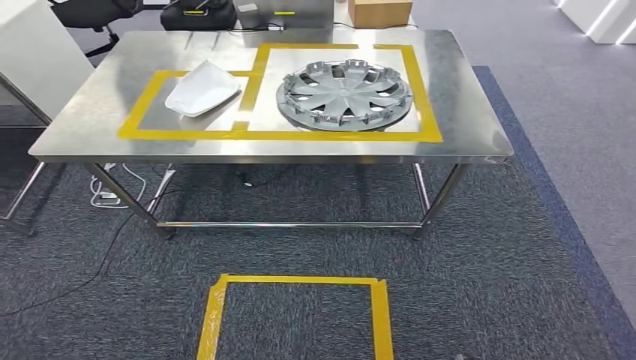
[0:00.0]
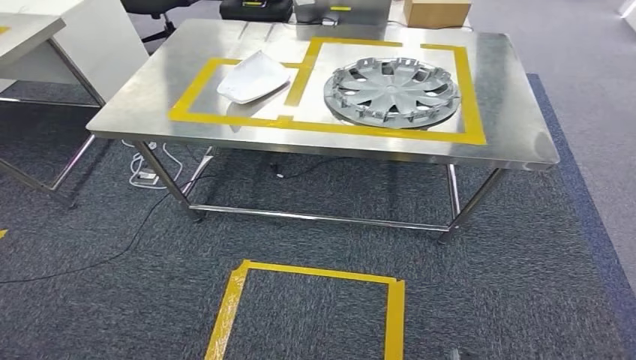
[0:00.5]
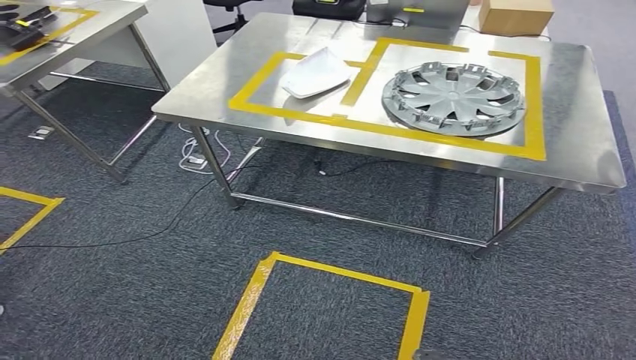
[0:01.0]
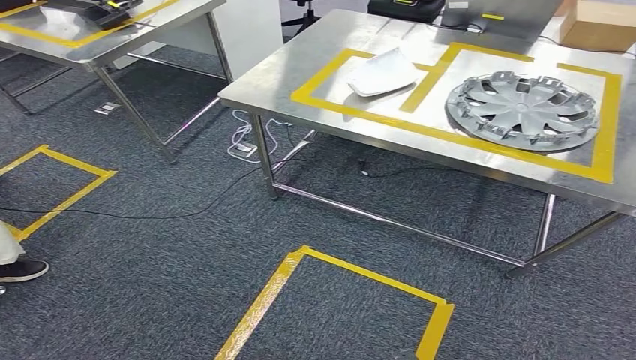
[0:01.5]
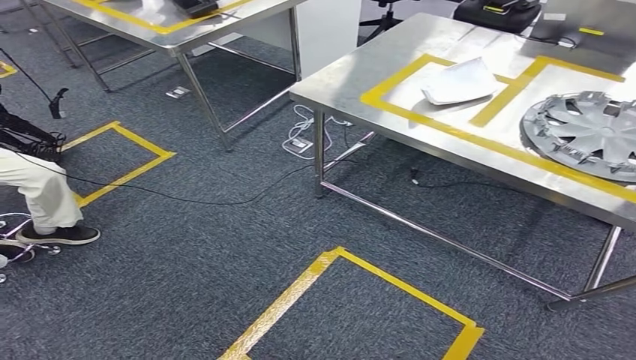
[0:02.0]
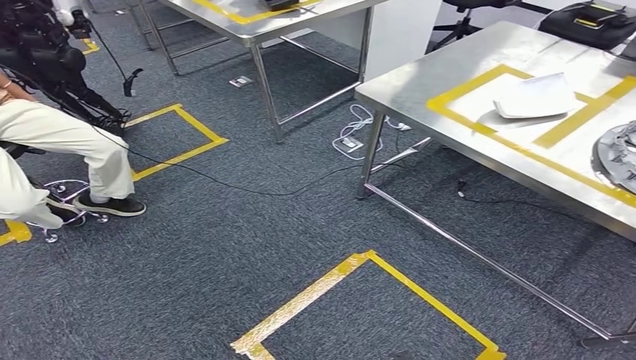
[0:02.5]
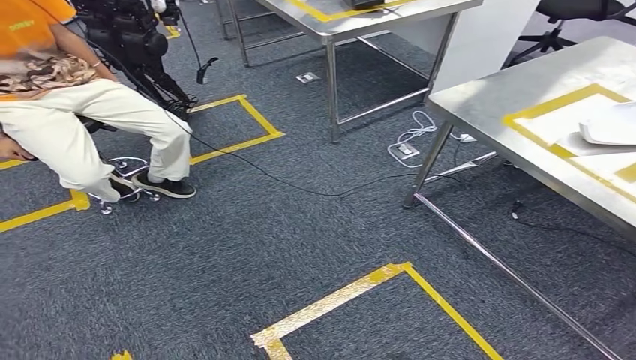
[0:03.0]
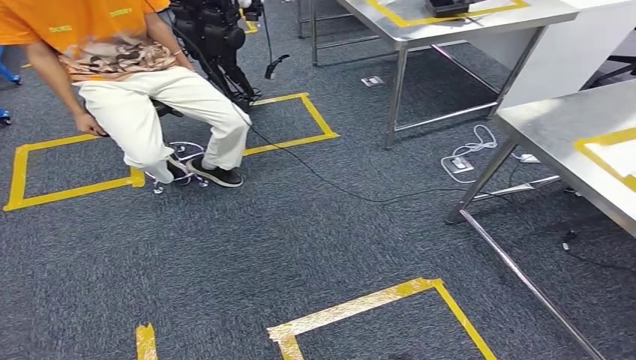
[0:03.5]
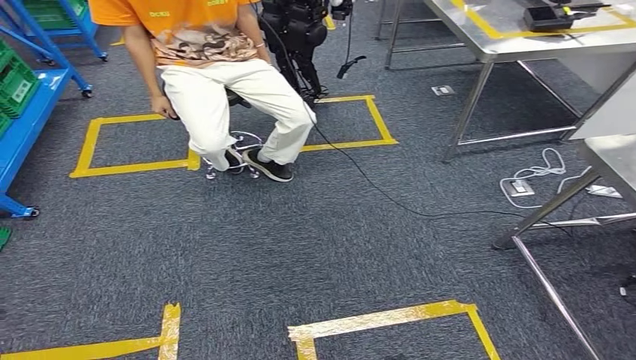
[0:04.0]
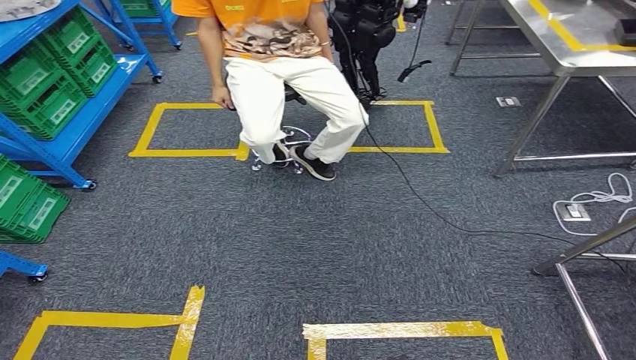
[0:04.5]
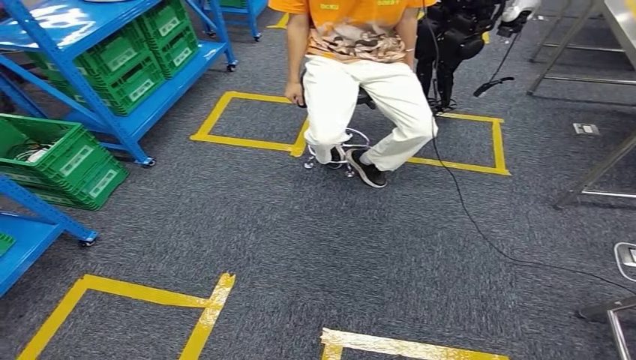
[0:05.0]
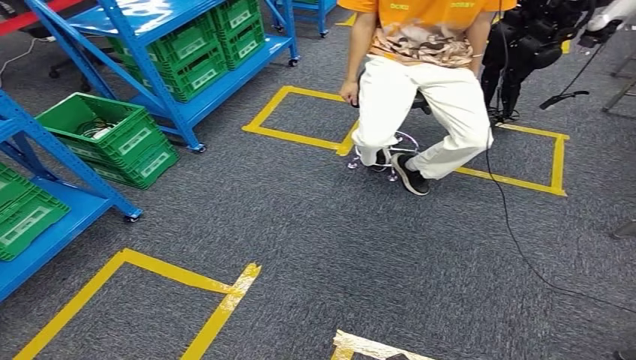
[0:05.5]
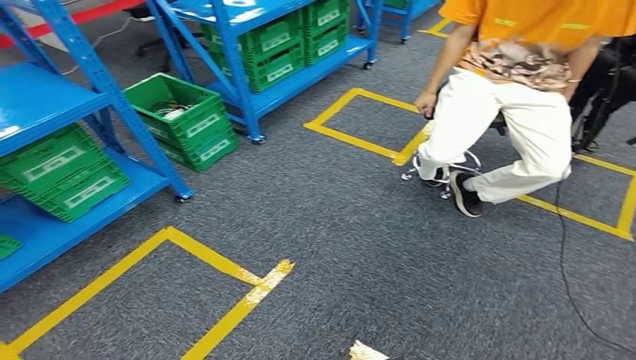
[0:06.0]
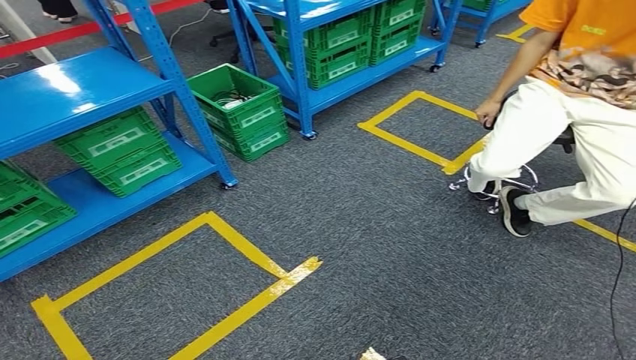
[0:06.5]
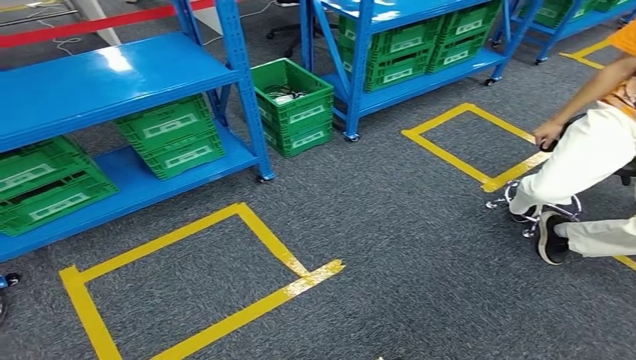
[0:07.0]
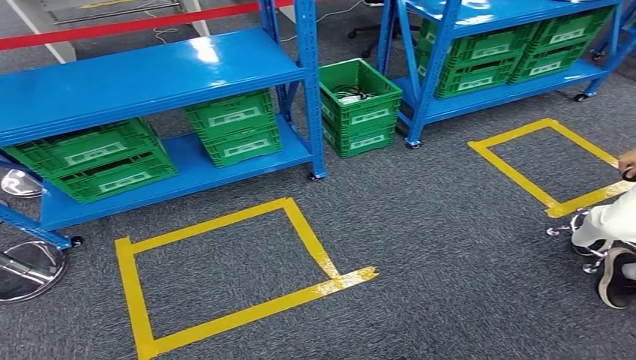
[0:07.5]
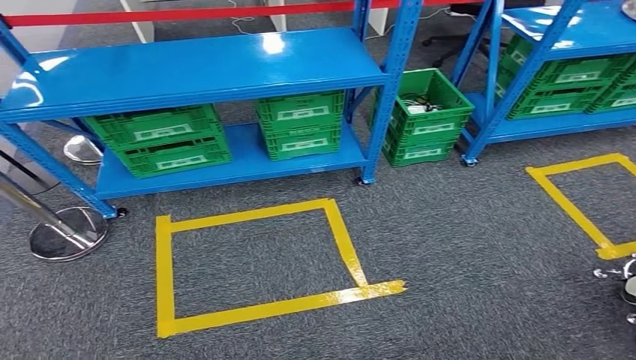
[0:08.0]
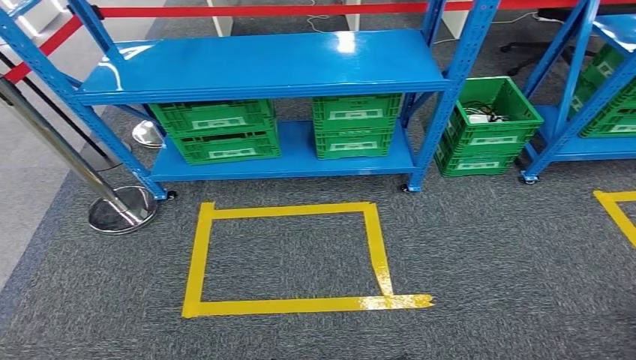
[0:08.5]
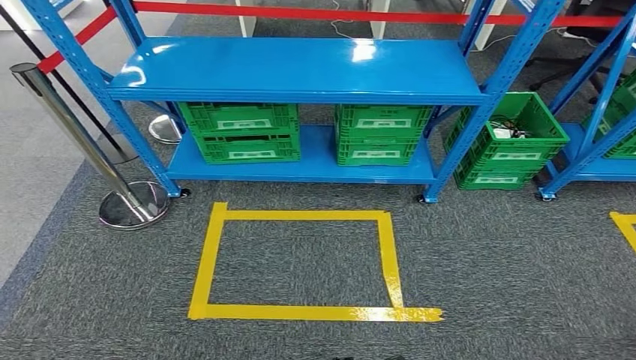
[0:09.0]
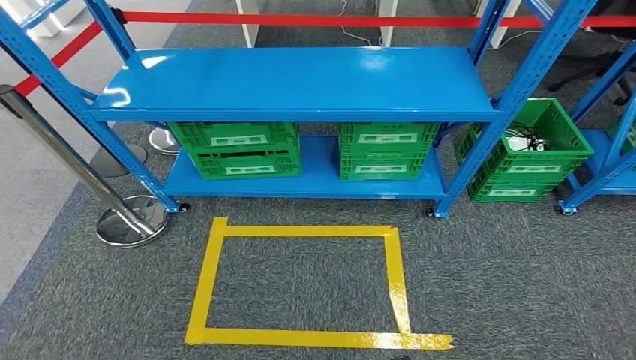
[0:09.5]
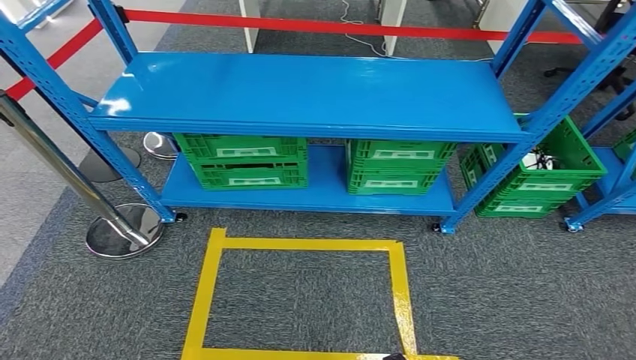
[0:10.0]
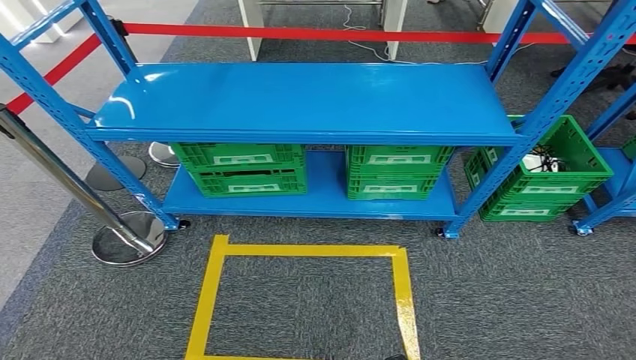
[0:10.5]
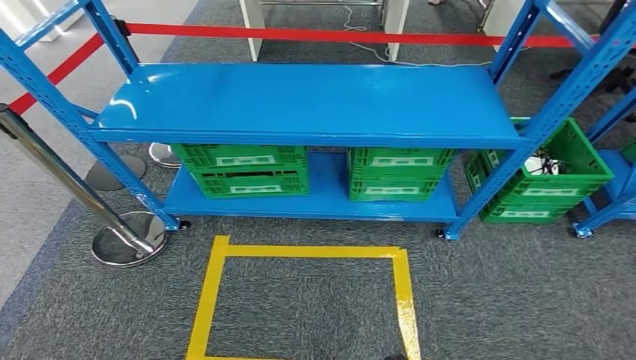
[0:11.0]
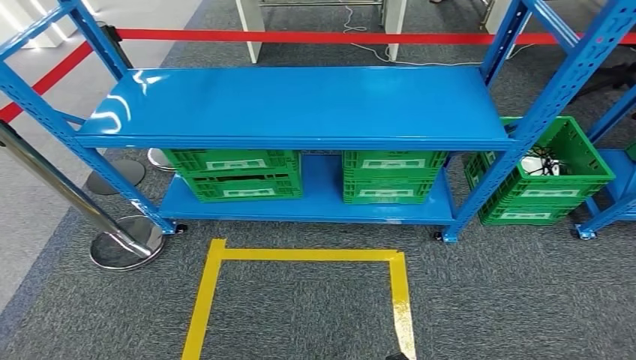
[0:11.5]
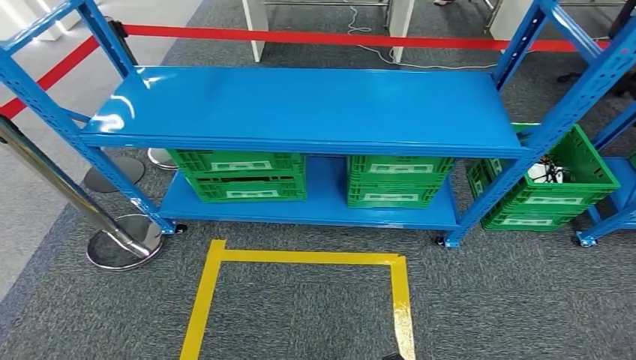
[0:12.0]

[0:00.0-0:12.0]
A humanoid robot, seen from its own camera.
Step, 0:00.0 to 0:07.0: Insert the small parts into the corresponding holes on the workbench.

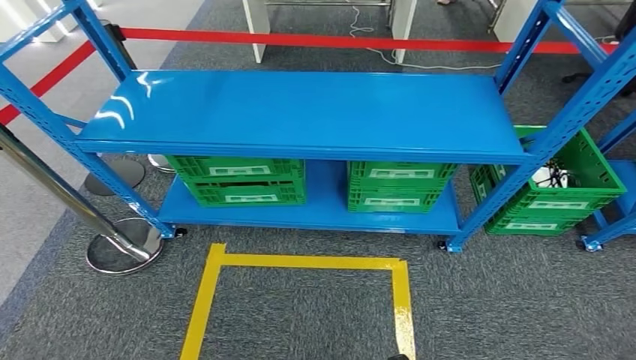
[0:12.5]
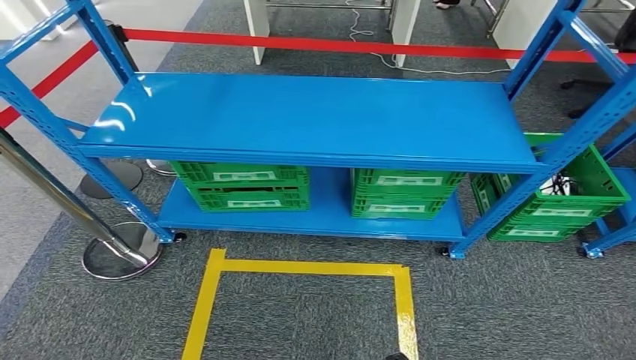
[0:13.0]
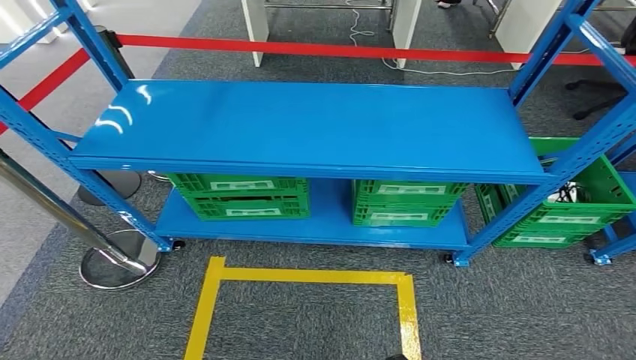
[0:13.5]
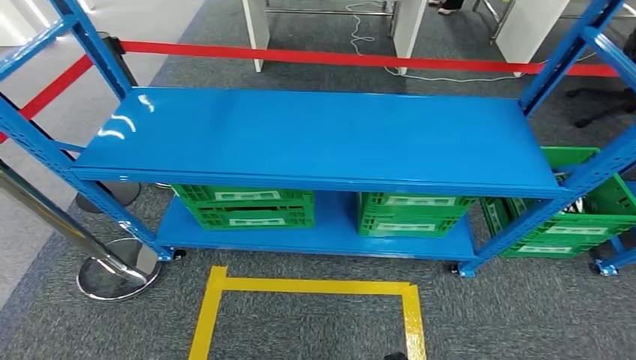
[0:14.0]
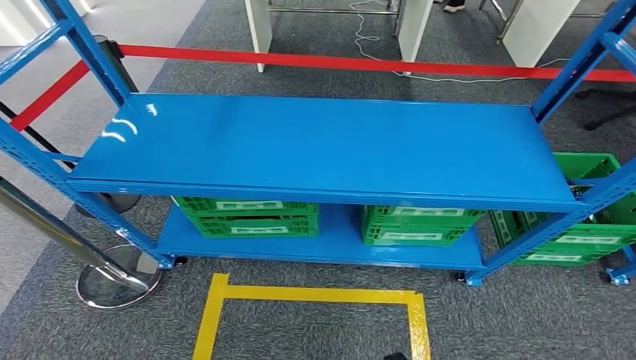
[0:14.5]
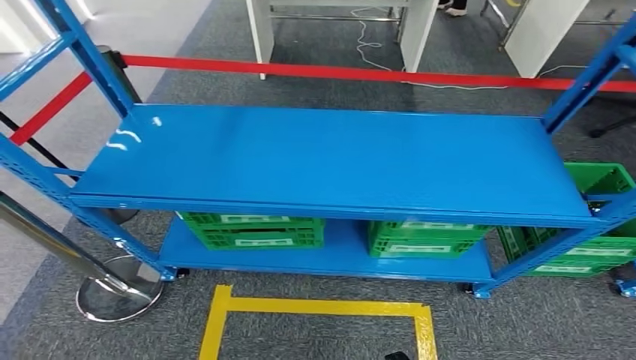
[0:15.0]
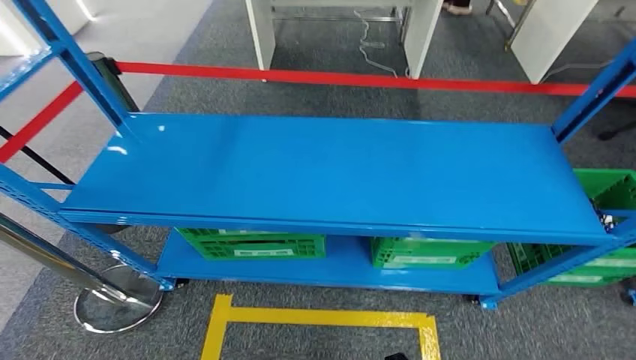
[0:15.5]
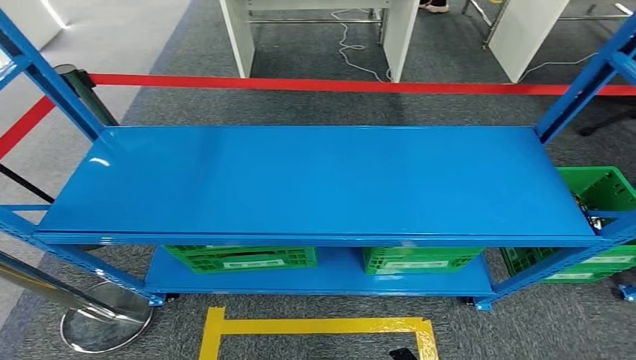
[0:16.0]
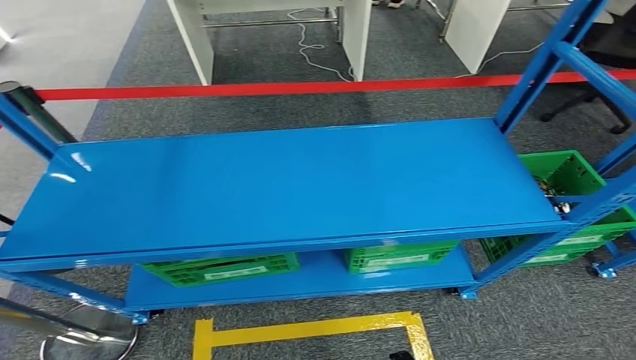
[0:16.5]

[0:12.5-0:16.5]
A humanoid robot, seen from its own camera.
Step, 0:12.5 to 0:16.5: Move to the initial position of the workbench.

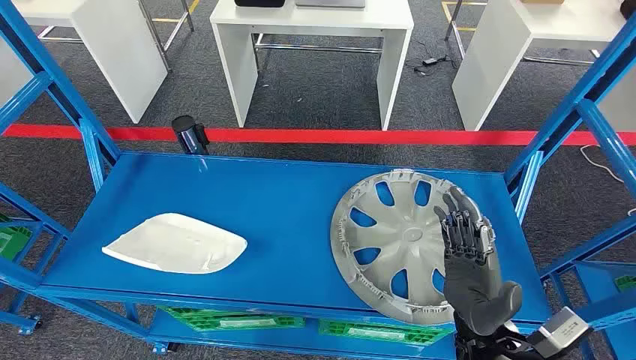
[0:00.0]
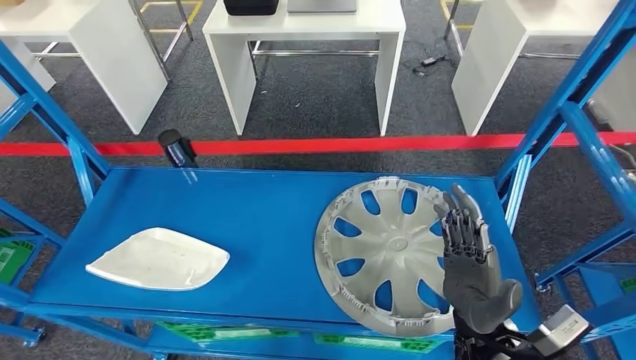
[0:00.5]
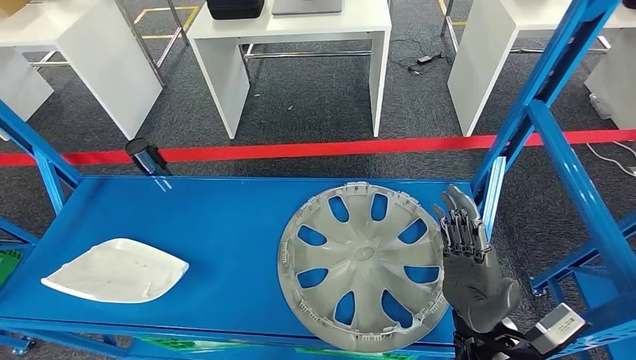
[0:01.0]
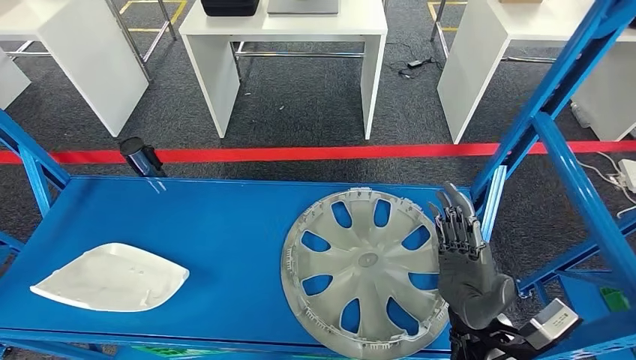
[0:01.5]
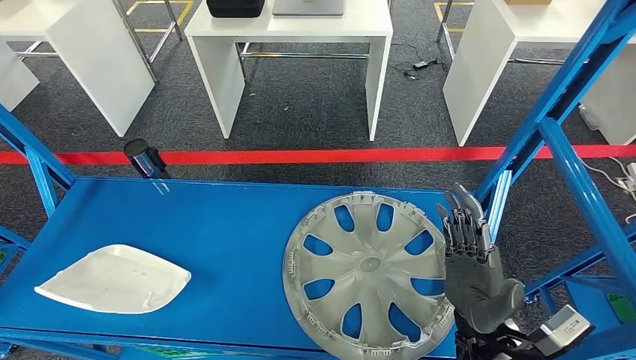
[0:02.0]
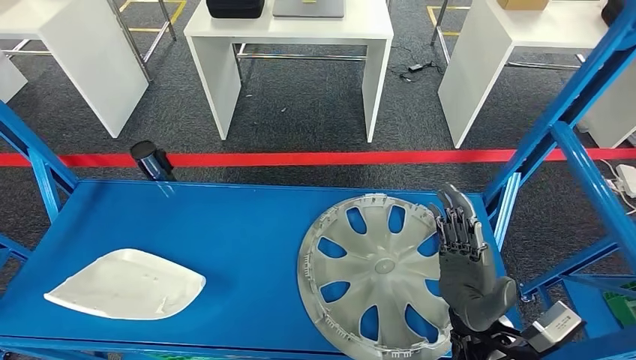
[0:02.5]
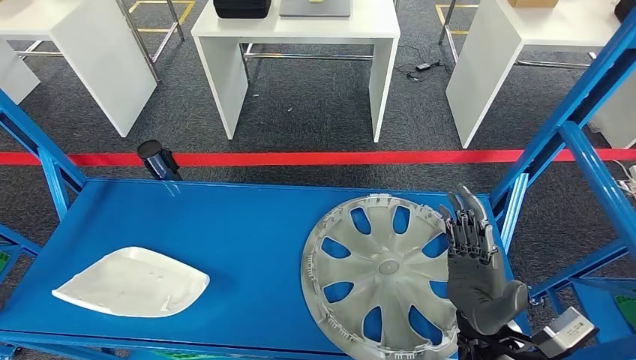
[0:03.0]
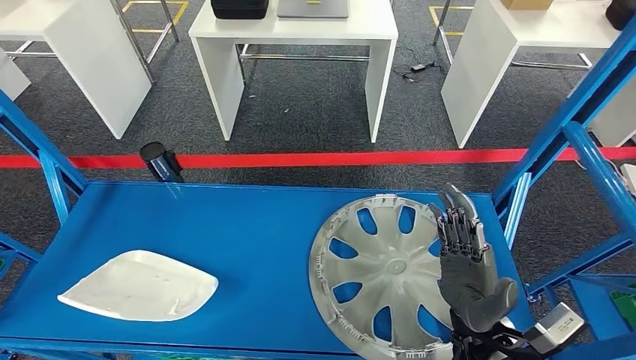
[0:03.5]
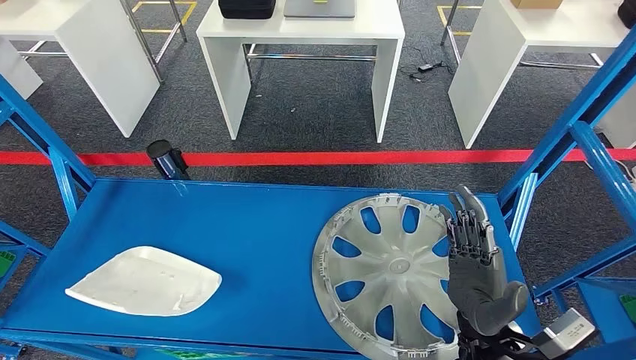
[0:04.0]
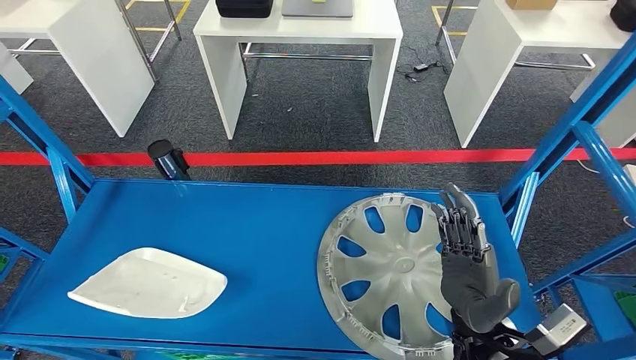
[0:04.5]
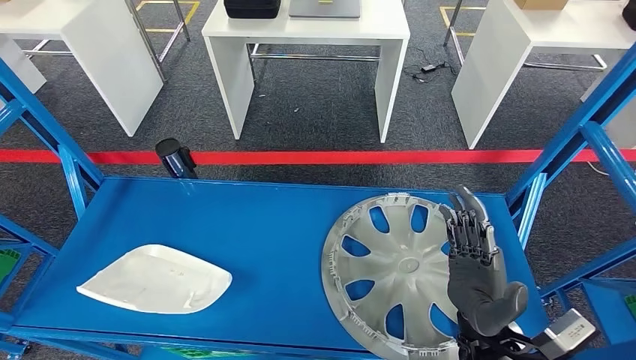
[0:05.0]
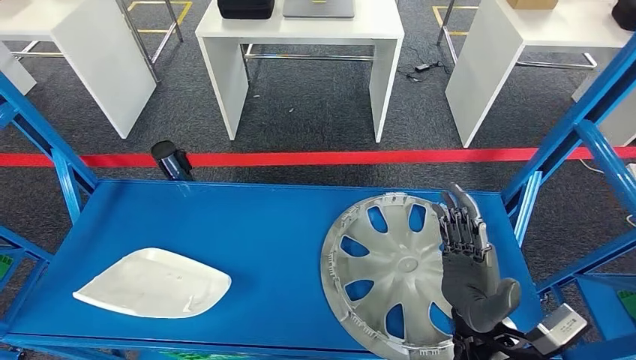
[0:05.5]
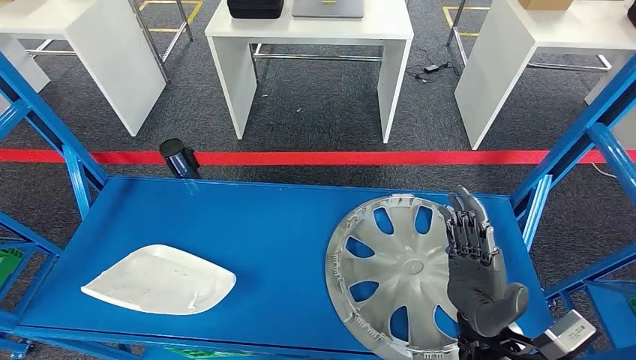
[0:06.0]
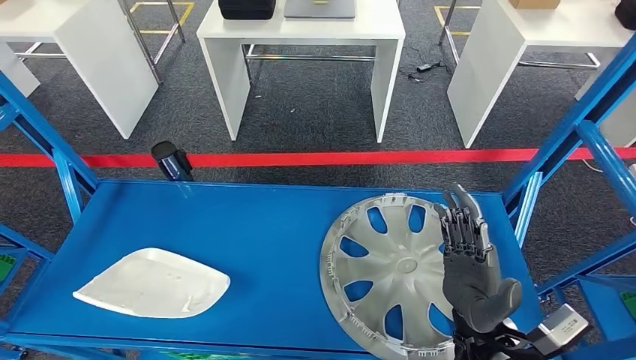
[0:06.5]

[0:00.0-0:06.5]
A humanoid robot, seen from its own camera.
0:04.5 to 0:06.5: Neither hand changes place.
